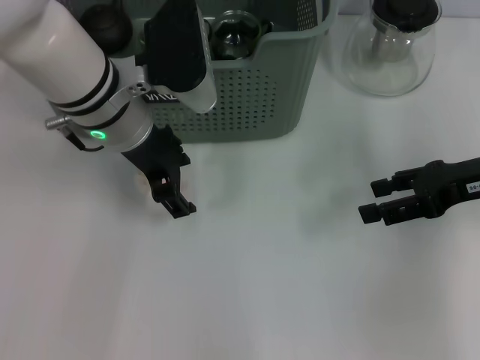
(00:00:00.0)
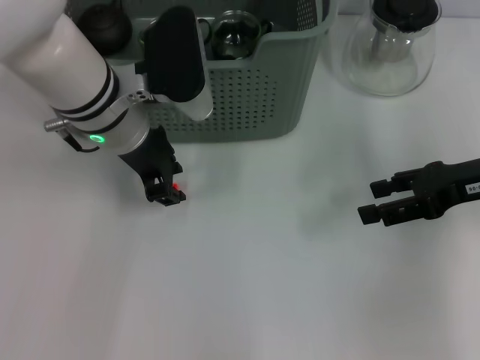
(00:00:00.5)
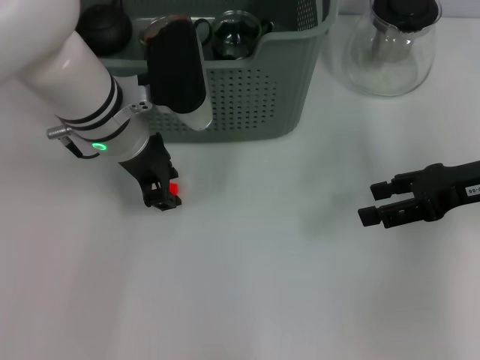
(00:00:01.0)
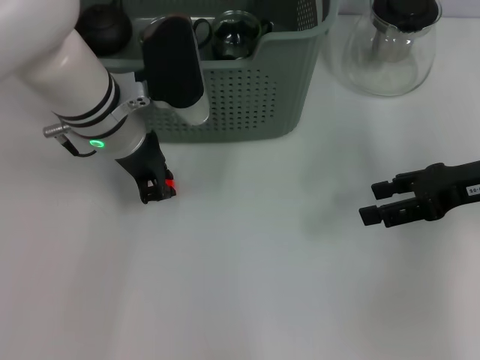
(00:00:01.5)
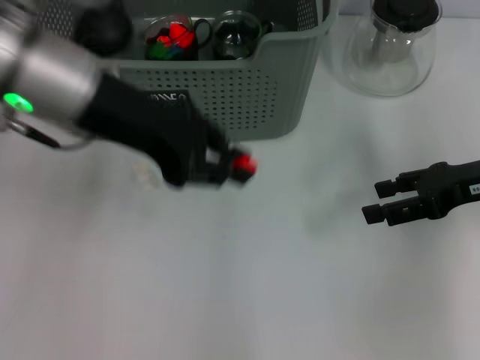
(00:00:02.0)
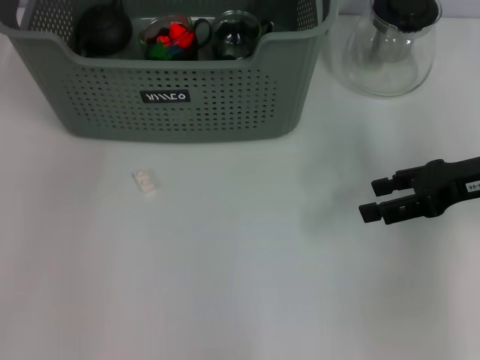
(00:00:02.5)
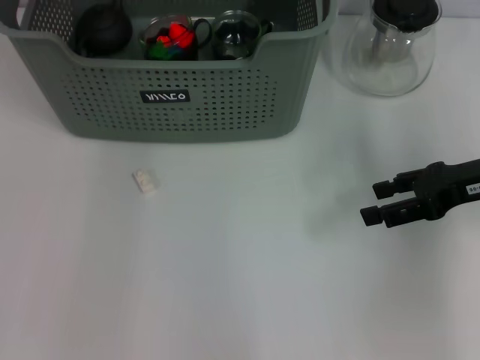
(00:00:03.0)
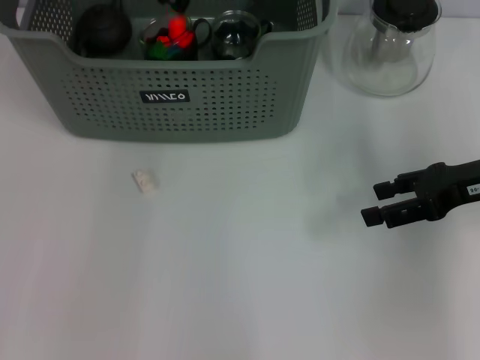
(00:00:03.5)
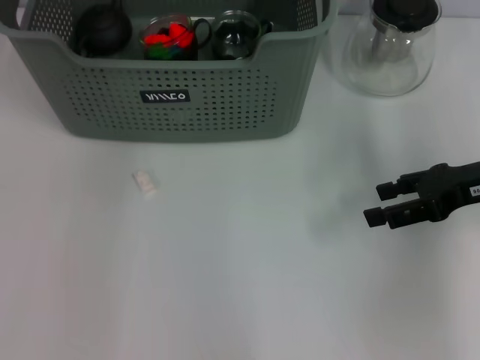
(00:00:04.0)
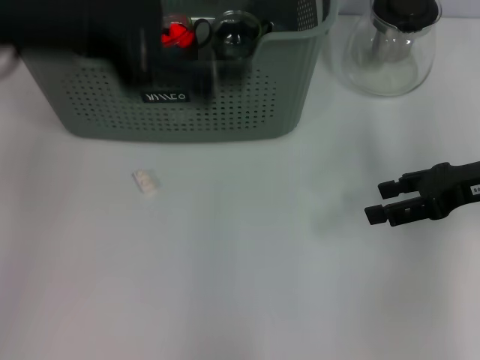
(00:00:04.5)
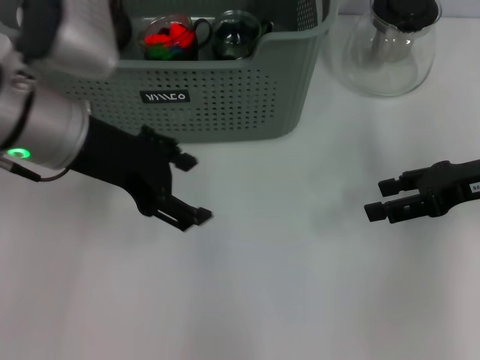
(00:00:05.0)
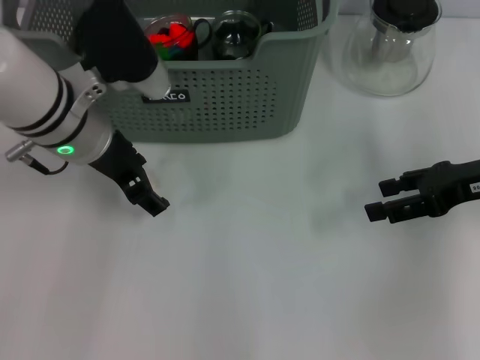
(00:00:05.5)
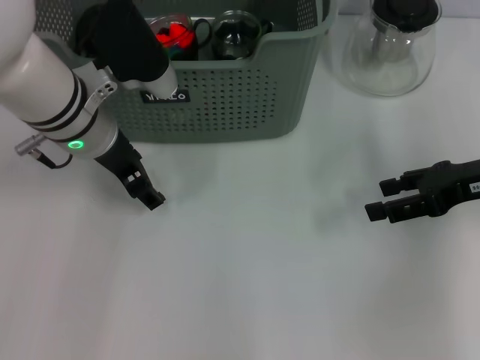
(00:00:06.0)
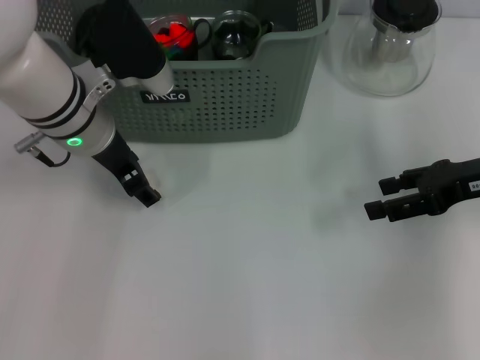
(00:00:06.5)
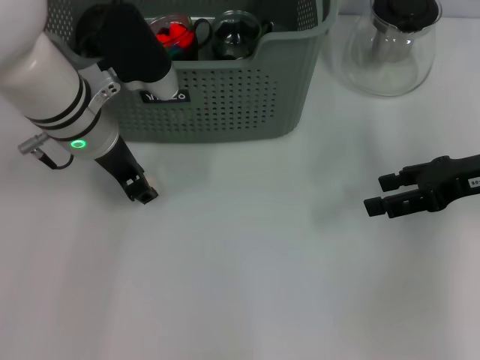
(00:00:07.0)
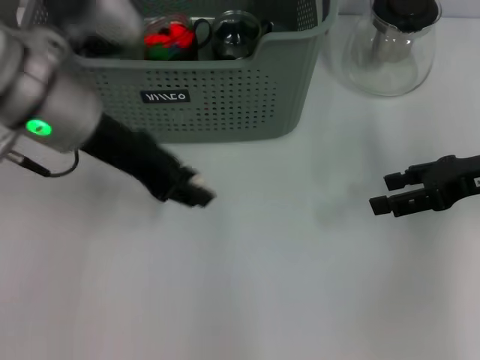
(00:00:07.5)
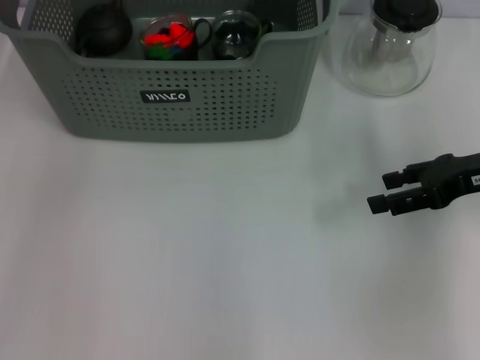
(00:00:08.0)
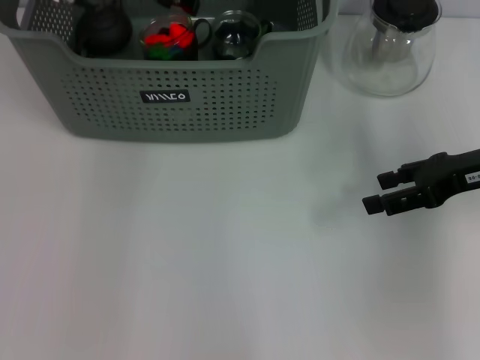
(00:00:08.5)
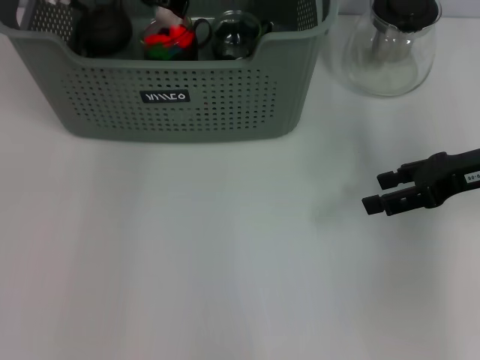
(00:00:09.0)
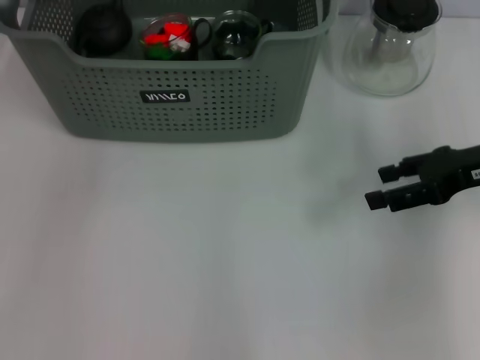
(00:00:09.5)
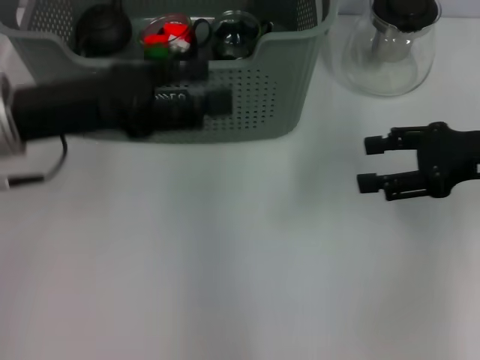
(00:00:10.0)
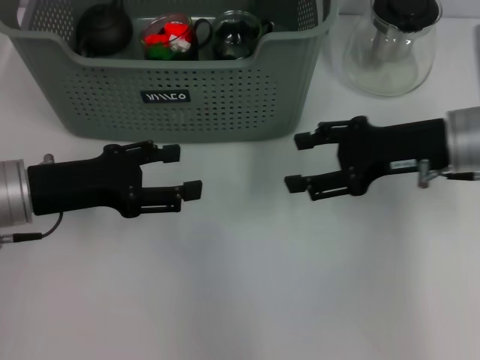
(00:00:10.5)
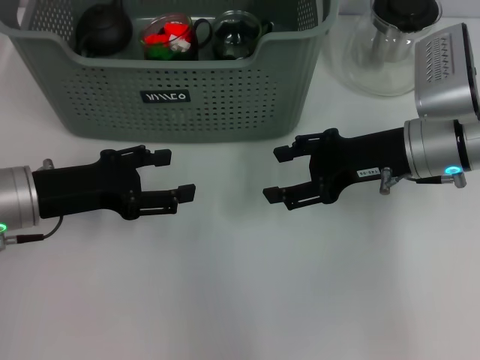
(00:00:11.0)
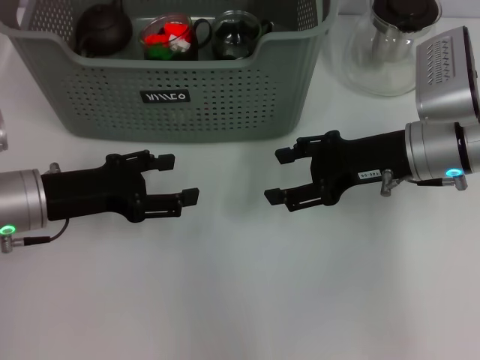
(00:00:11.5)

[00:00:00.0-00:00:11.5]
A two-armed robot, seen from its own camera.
Task of the whole recording: pick up the teacup on the table and place it into the storage bin, pick up the block on the table and place it into the storage bin.
Step, 00:00:02.0 to 00:00:03.5: Place the orange block in the storage box with left gripper.
Step, 00:00:04.0 to 00:00:07.0: Grasp the white block with left gripper.
Step, 00:00:07.5 to 00:00:09.0: Place the white block in the storage box with left gripper.
00:00:00.0 to 00:00:02.0: The left gripper is displaced upward by about 10 cm, and closes up.
00:00:02.0 to 00:00:04.0: The left gripper moves forward and upward, some 15 cm.
00:00:04.0 to 00:00:06.0: The left gripper goes approximately 15 cm downward and backward, and opens its fingers.
00:00:06.0 to 00:00:07.5: The left gripper moves upward, approximately 5 cm, and closes.
00:00:07.5 to 00:00:09.5: The left gripper heads upward and forward, covering roughly 10 cm, and opens its fingers.
00:00:09.5 to 00:00:11.5: The right gripper shifts roughly 10 cm to the left. Meanwhile the left gripper goes some 25 cm downward and backward.
